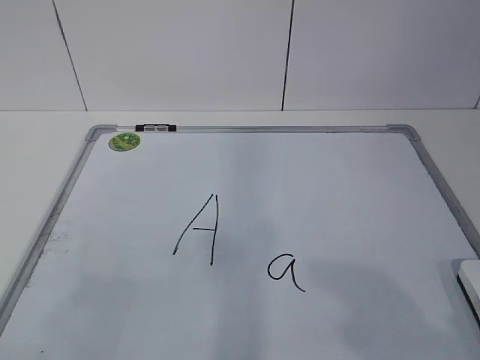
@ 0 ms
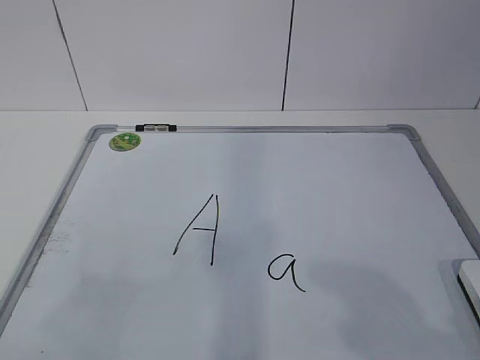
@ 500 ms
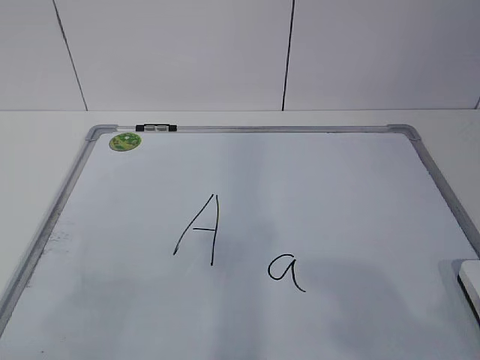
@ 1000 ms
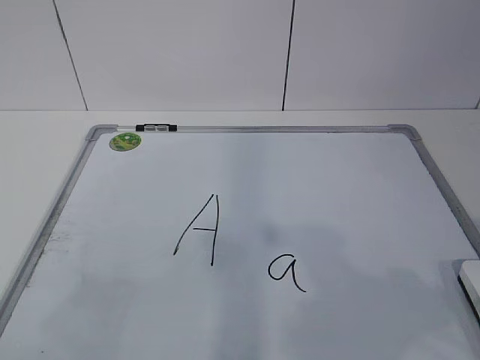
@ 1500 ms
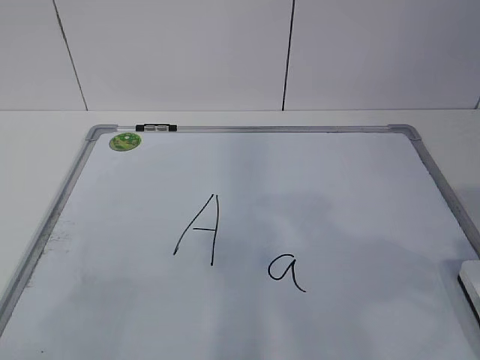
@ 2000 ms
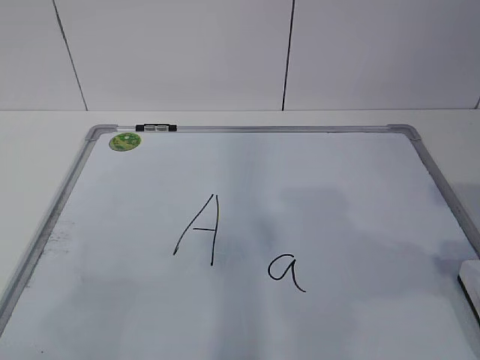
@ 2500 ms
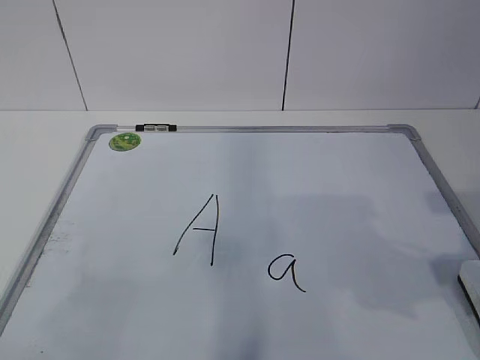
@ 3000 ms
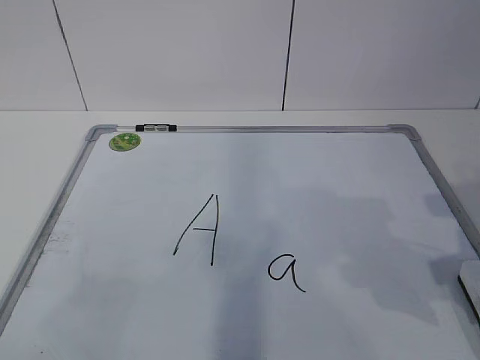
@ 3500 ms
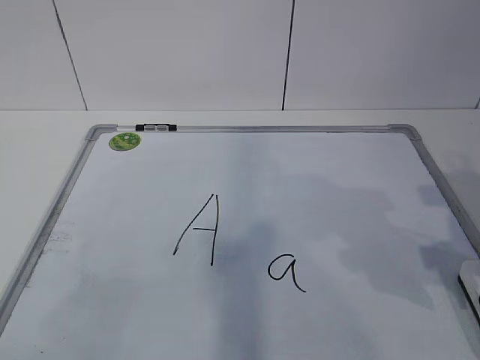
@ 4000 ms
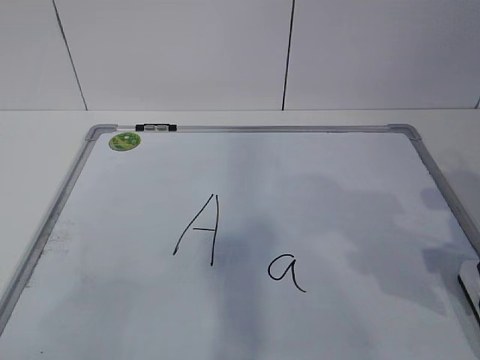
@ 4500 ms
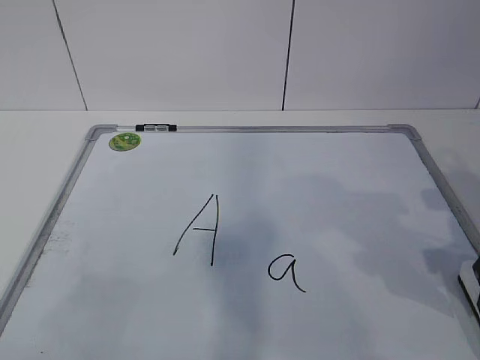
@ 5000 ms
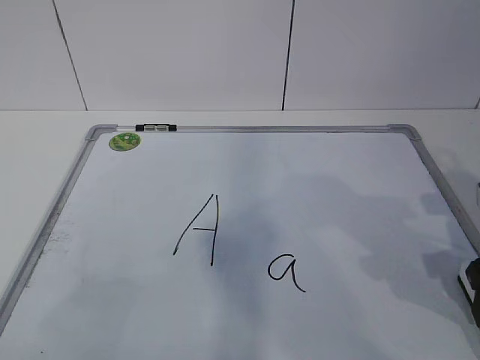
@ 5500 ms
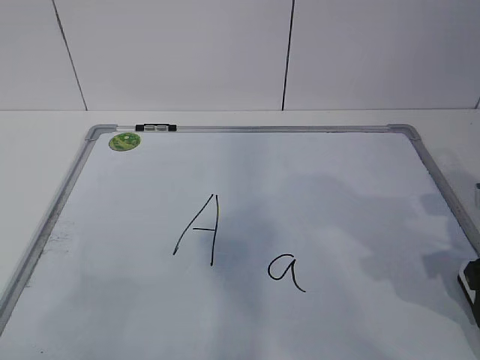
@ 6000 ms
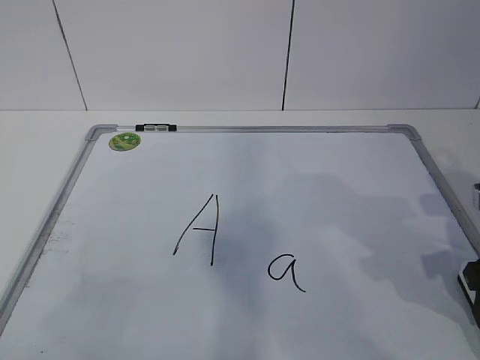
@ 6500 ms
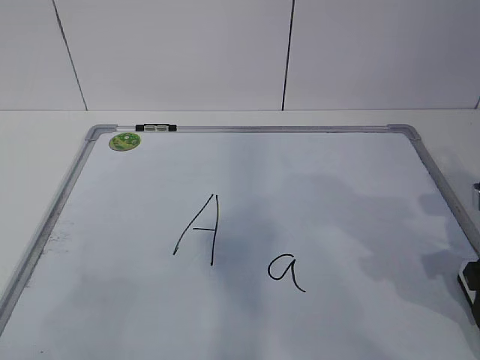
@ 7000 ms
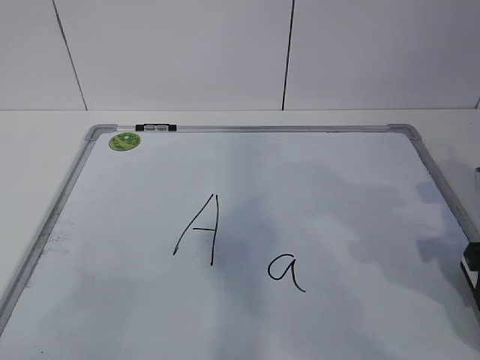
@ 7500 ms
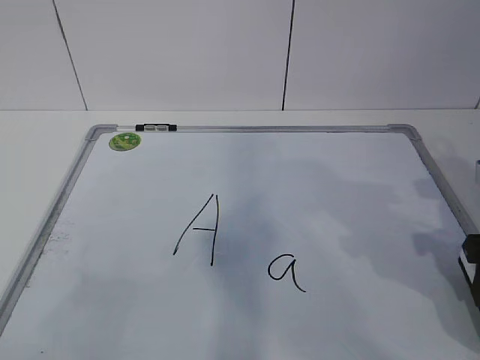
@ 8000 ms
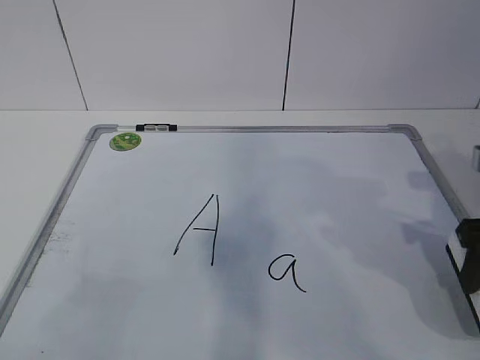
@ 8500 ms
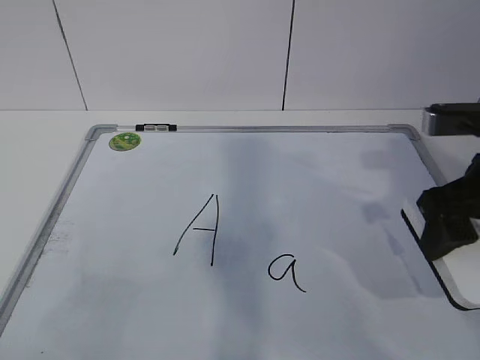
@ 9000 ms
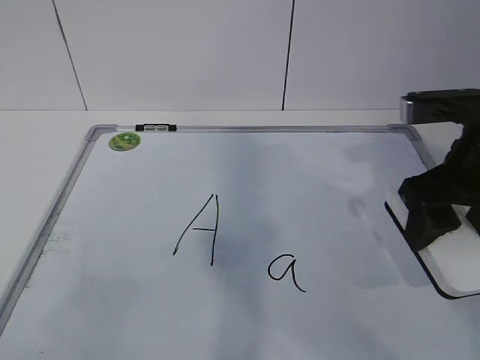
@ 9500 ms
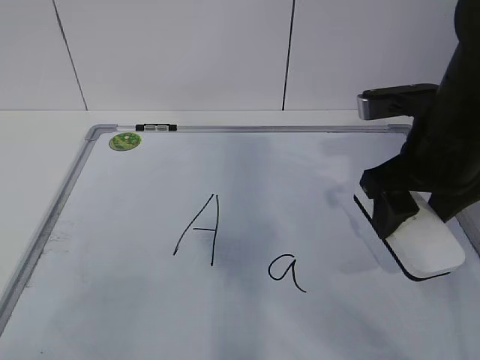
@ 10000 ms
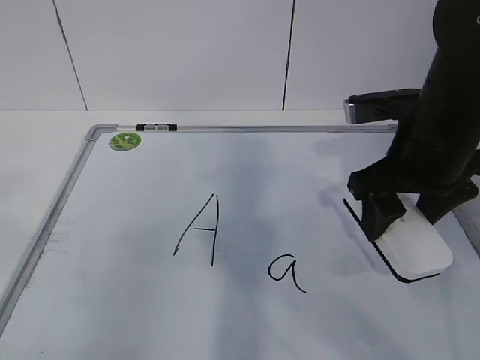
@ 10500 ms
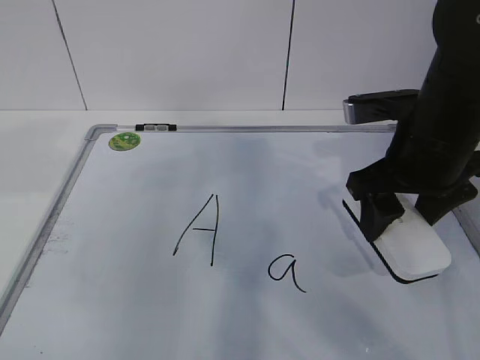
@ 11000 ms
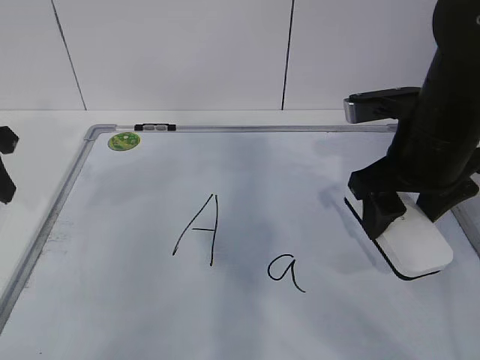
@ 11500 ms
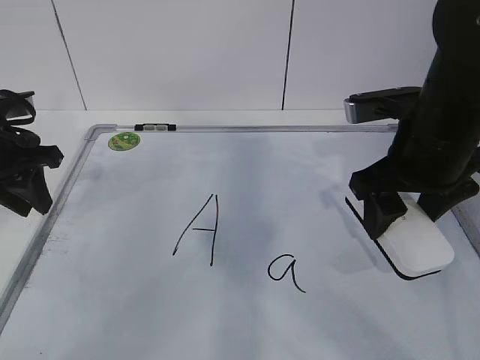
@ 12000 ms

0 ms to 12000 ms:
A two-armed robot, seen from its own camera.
Task of the whole recording: pick up the eraser on the blackboard and erase the letter "a".
Step, 6500 ms to 11000 ms: Hold the drawing board steady with your left hand.
2000 ms to 4000 ms: The right gripper travels forward and downward by about 15 cm, and opens.
6000 ms to 8000 ms: The right gripper closes.
8000 ms to 10000 ms: The right gripper is displaced to the left, forward and upward by approximately 10 cm.
10000 ms to 12000 ms: The left gripper moves forward, about 35 cm.

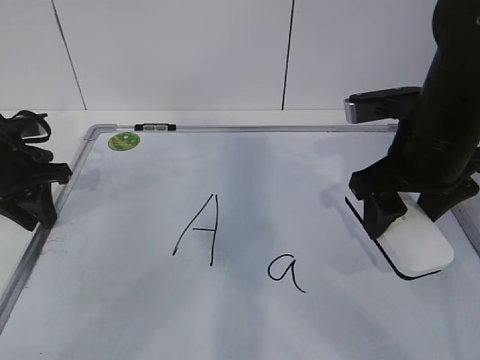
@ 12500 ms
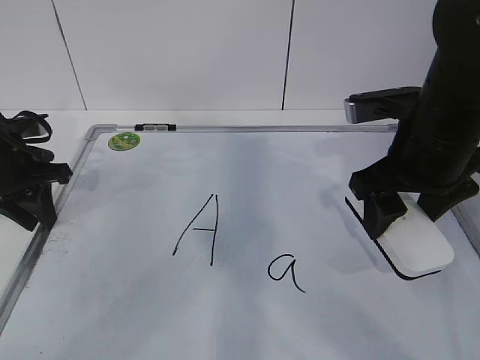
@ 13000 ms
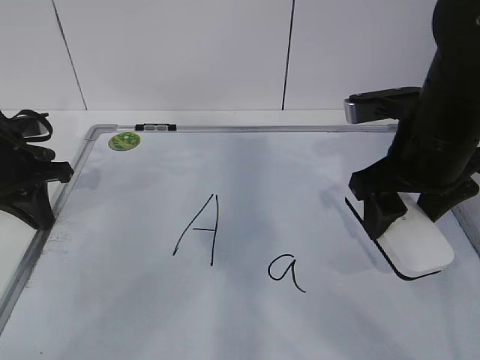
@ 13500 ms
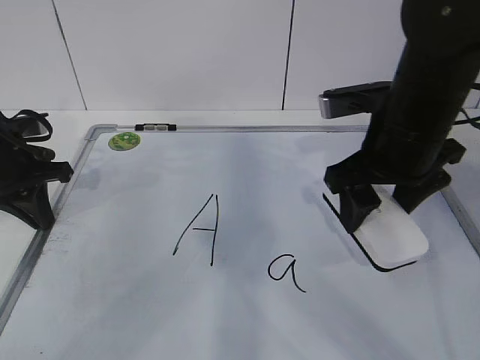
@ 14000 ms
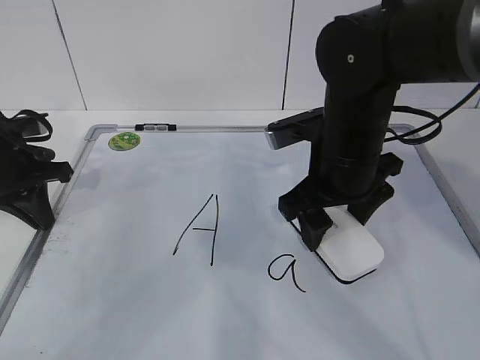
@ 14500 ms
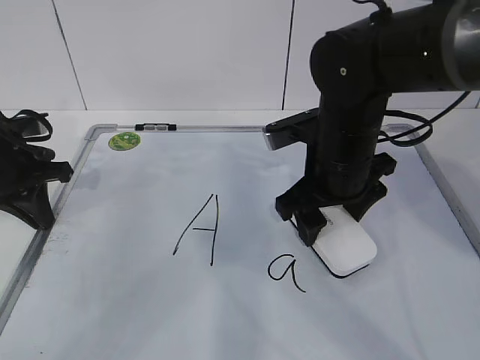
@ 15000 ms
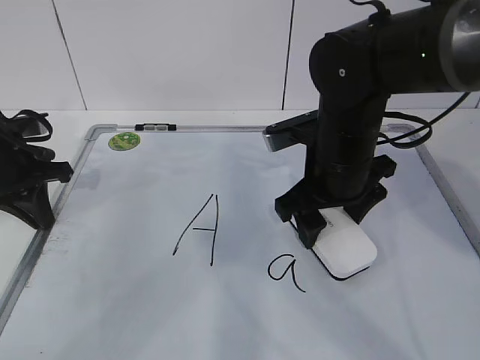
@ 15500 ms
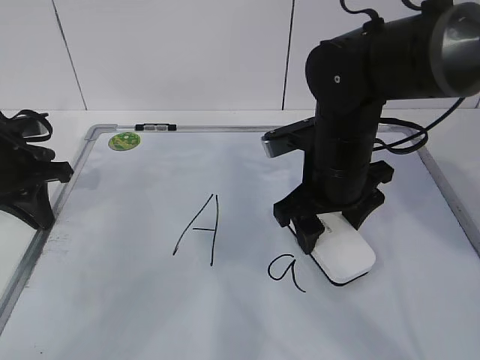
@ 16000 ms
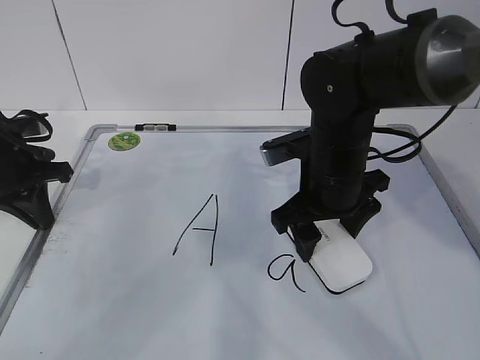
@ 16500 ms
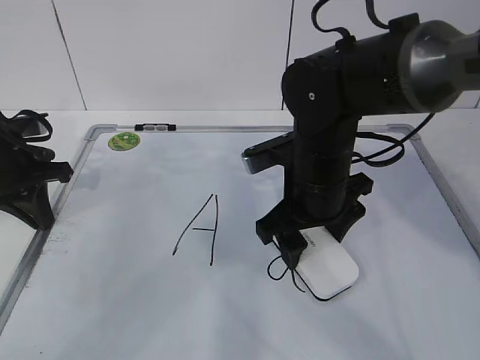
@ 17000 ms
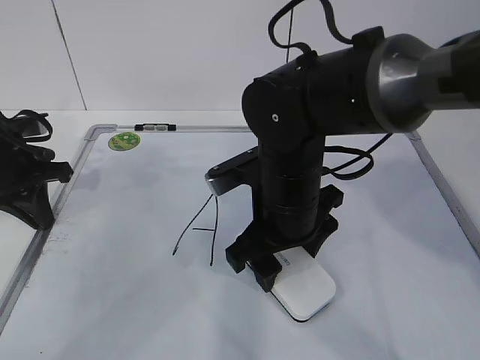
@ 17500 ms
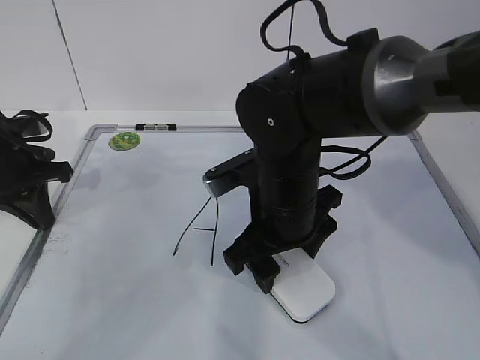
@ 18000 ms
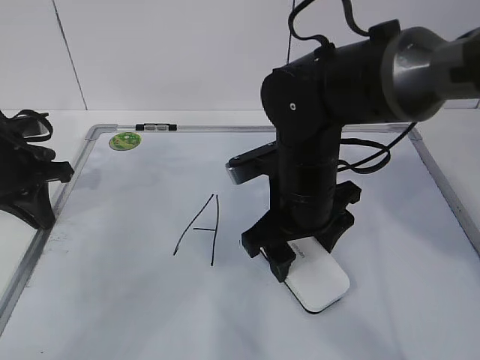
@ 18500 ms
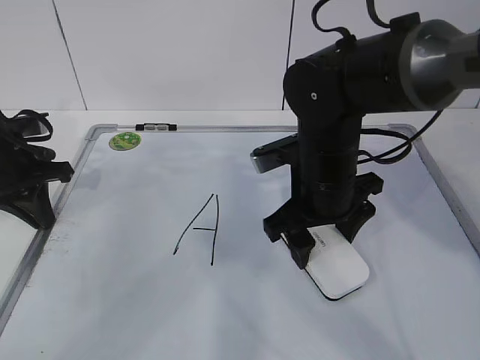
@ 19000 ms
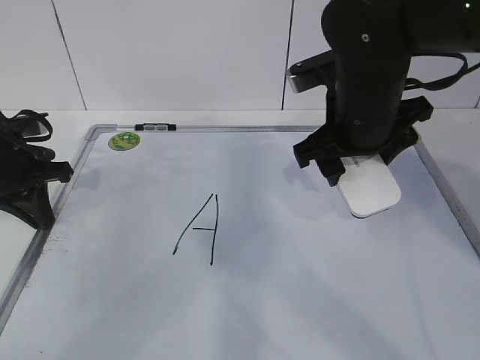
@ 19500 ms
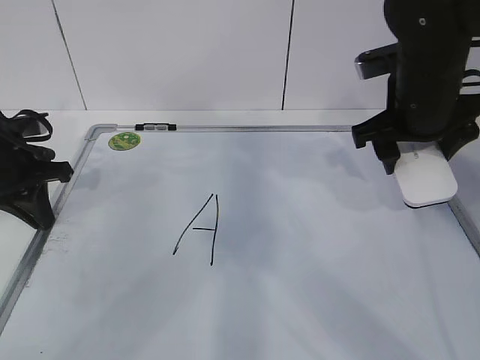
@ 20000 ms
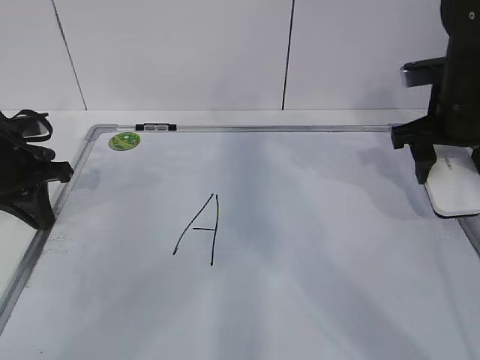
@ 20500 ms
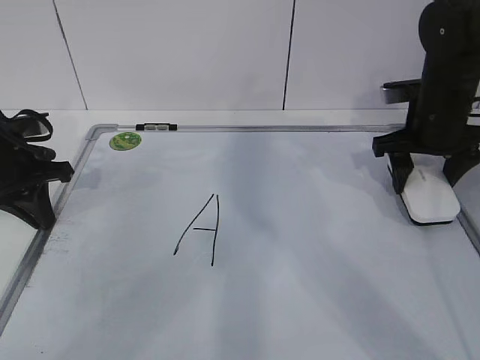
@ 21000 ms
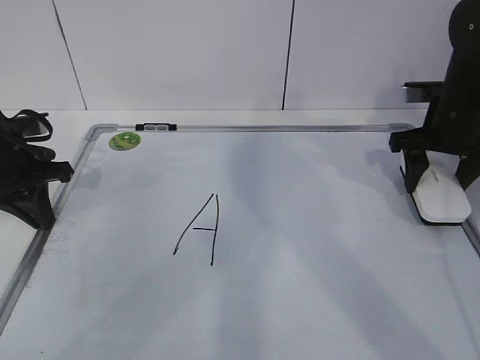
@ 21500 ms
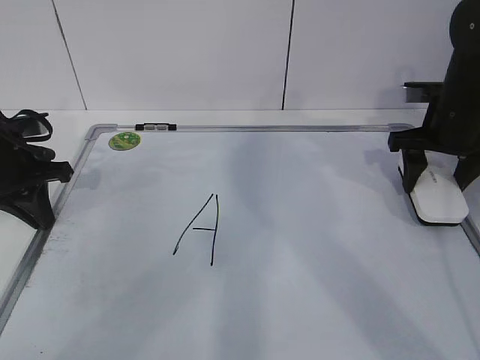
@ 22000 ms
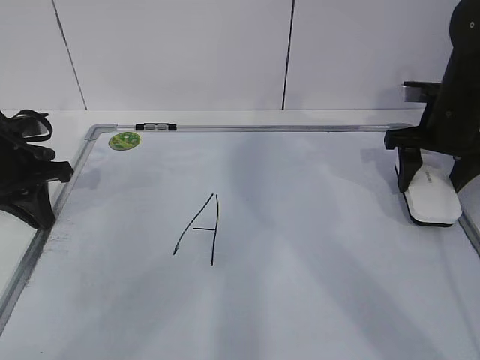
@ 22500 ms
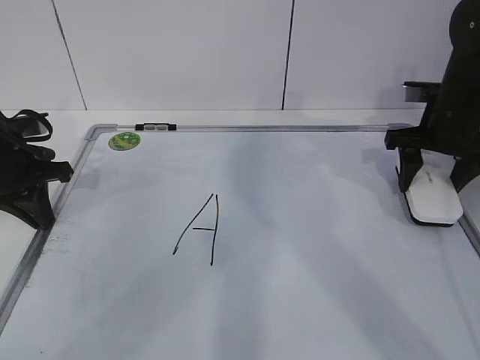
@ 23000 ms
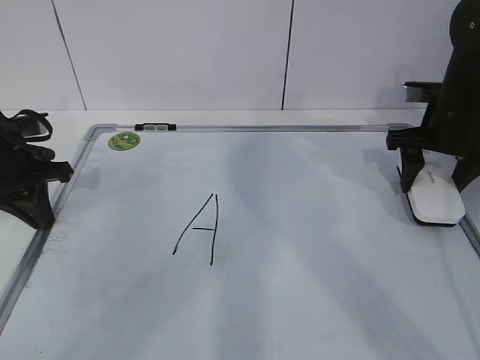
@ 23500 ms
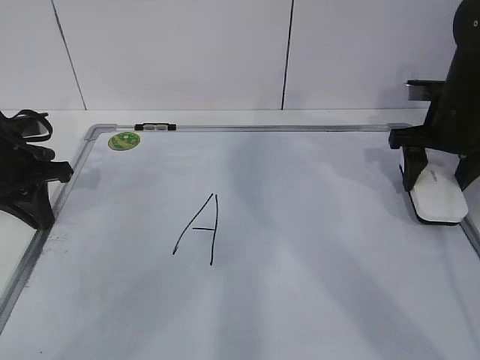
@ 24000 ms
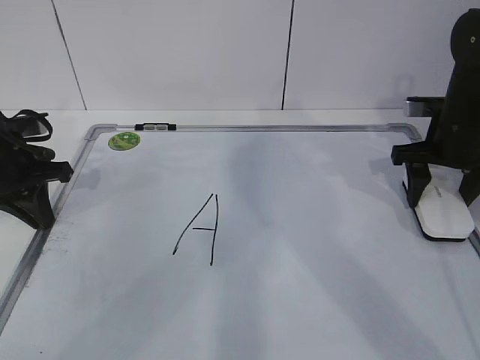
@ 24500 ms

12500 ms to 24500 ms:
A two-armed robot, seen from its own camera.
Task of the whole recording: pick up the eraser on the blackboard and erase the letter "a".
Step, 12500 ms to 15500 ms: Erase the letter a with your right hand.
Step, 16000 ms to 20500 ms: Put down the eraser with your right hand.
12500 ms to 14500 ms: The right gripper moves to the left, some 5 cm. The left gripper closes up.
14500 ms to 16500 ms: There are only small adjustments of the grippers.
18500 ms to 20500 ms: The right gripper moves to the right, some 20 cm.
20500 ms to 22500 ms: The right gripper shifts by approximately 5 cm.
22500 ms to 24500 ms: There are only small adjustments of the grippers.

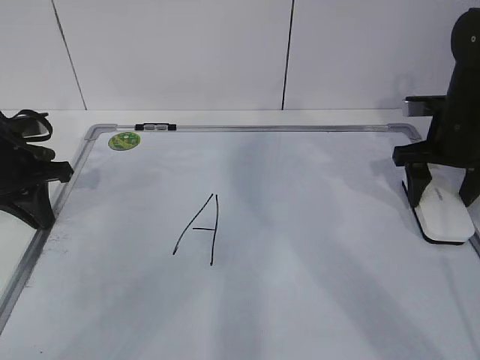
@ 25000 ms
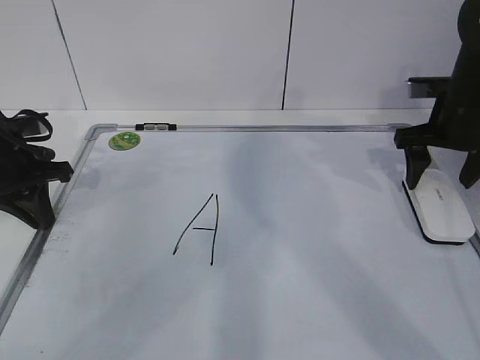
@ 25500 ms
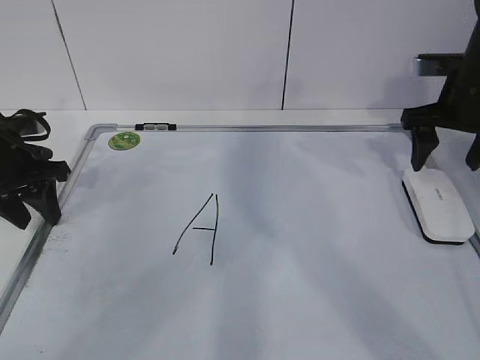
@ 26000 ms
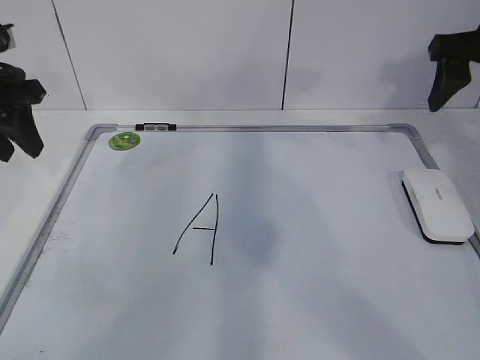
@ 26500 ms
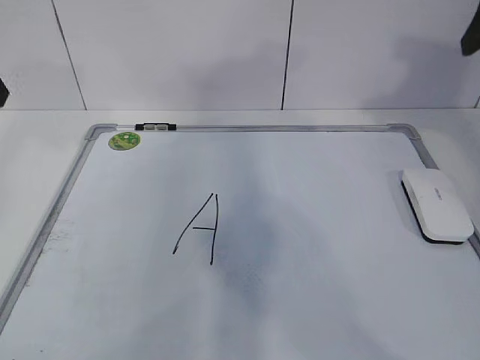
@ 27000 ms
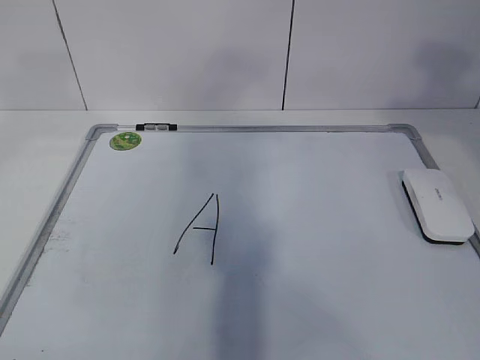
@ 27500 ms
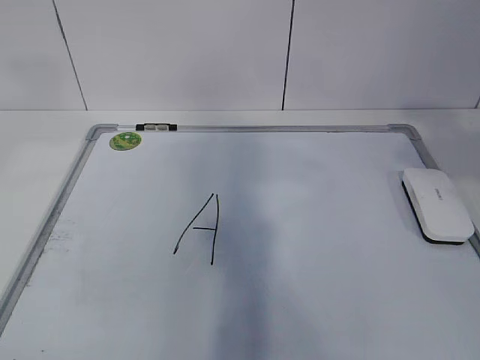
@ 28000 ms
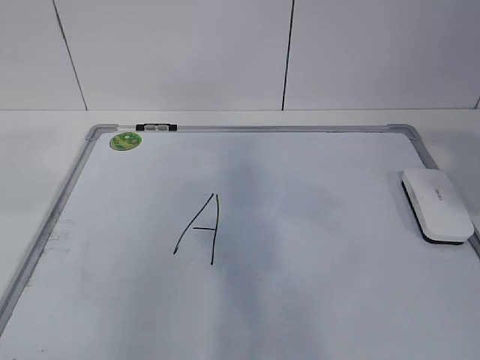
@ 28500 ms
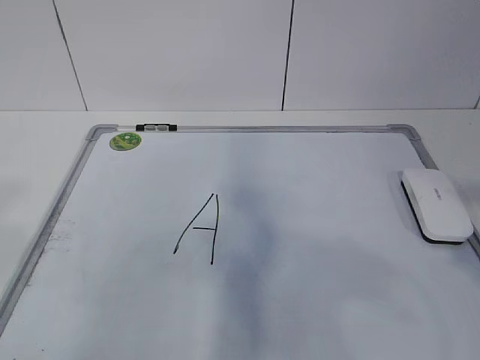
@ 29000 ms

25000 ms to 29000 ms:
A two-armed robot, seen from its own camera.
Task of the whole recording: pick up the eraser on the blackboard and erase the letter "a".
25000 ms to 27000 ms: The left gripper goes approximately 20 cm upward, and opens its fingers, while the right gripper moves upward and backward, approximately 20 cm, and closes its fingers.
27000 ms to 29000 ms: Both grippers move backward, approximately 25 cm.
